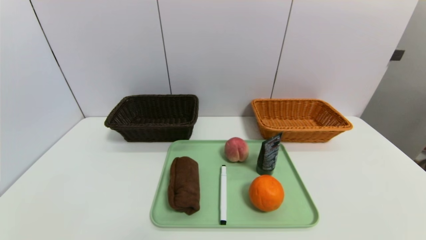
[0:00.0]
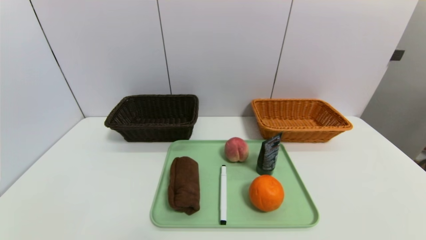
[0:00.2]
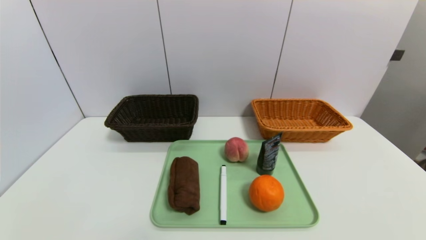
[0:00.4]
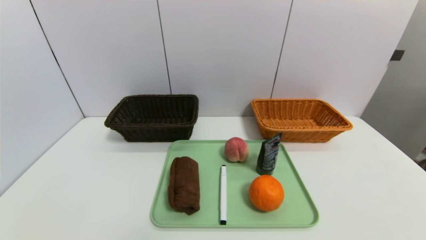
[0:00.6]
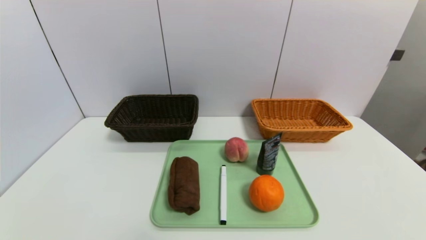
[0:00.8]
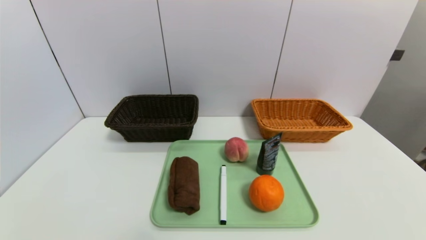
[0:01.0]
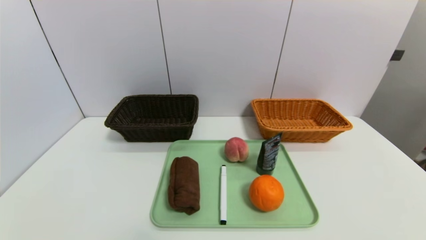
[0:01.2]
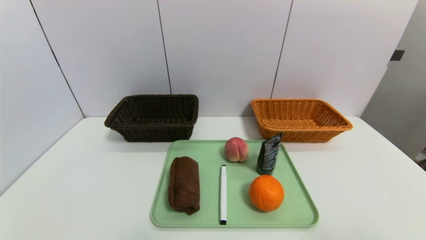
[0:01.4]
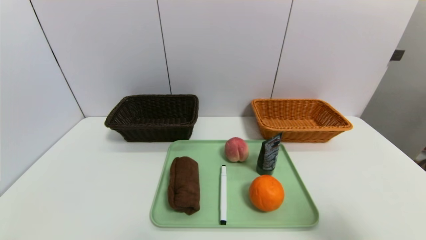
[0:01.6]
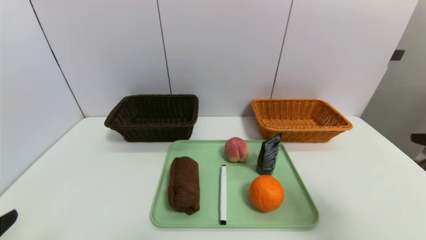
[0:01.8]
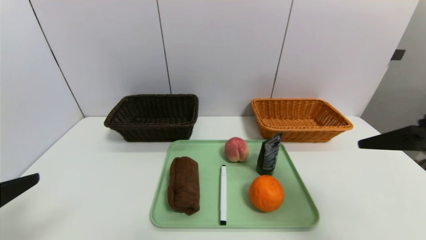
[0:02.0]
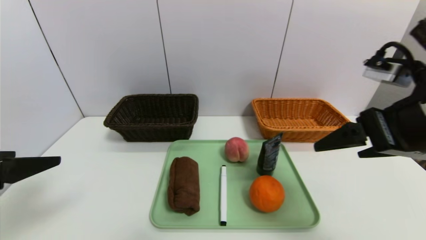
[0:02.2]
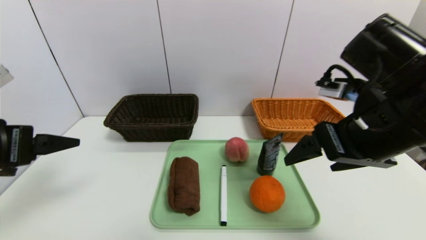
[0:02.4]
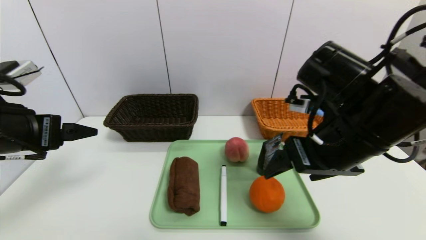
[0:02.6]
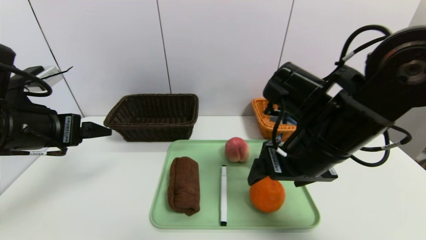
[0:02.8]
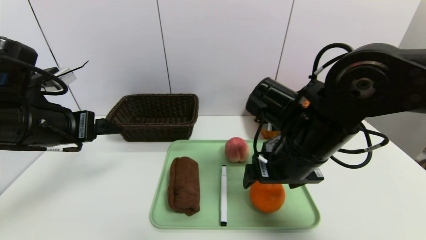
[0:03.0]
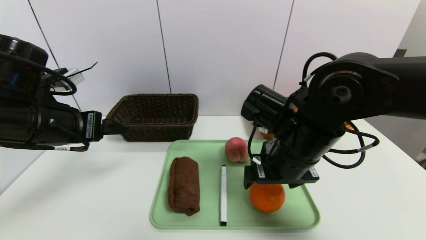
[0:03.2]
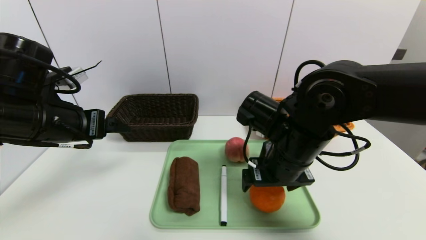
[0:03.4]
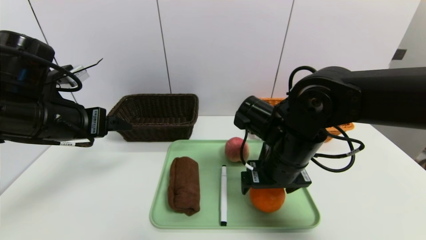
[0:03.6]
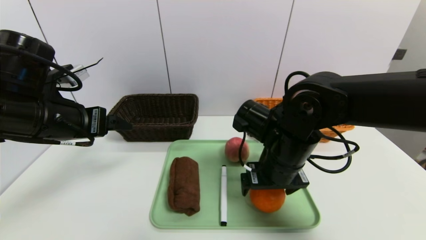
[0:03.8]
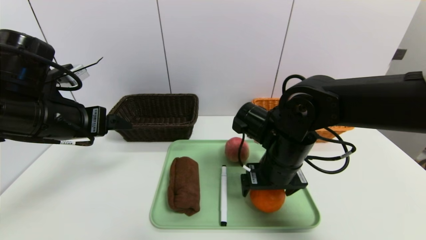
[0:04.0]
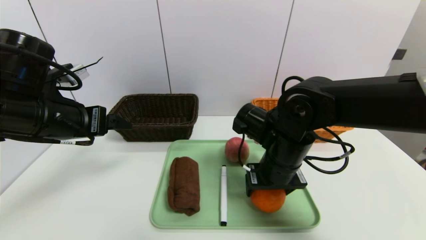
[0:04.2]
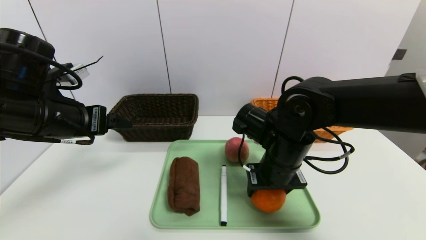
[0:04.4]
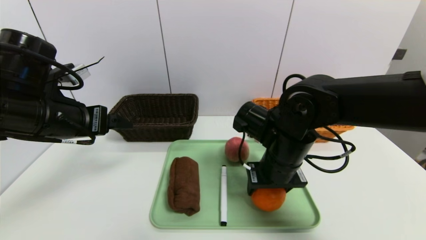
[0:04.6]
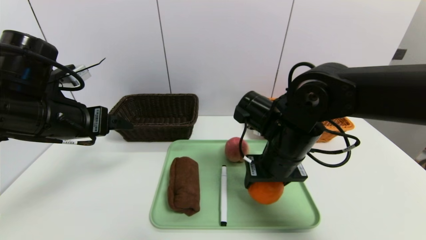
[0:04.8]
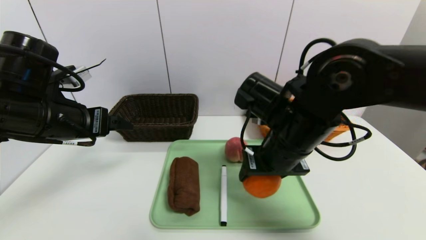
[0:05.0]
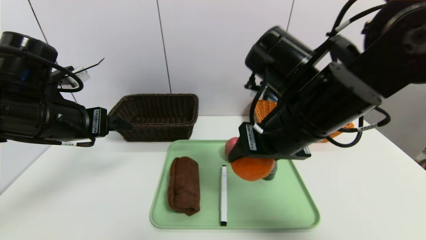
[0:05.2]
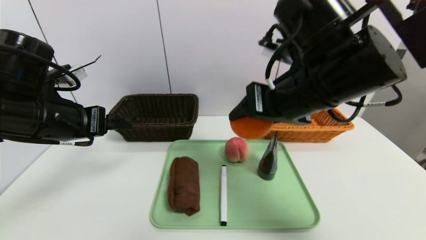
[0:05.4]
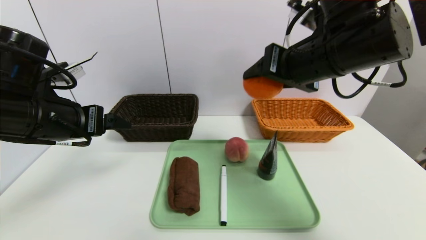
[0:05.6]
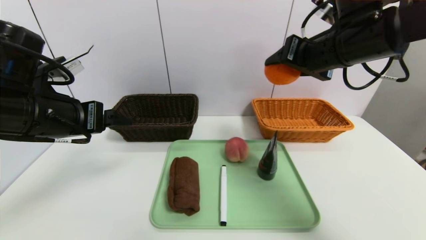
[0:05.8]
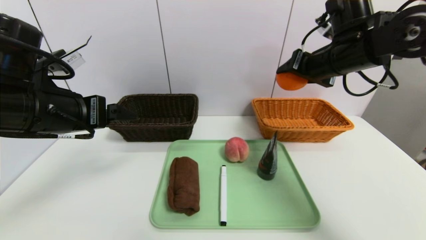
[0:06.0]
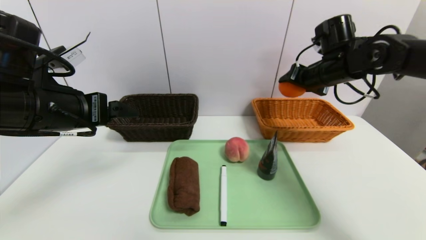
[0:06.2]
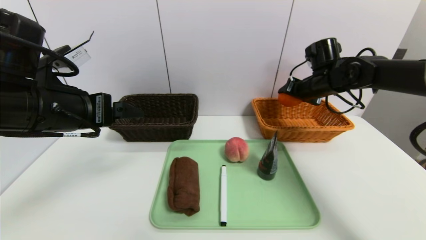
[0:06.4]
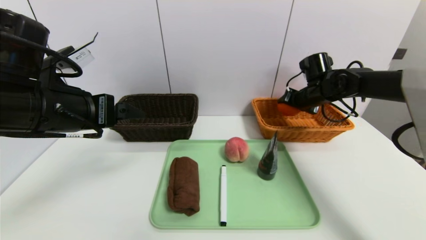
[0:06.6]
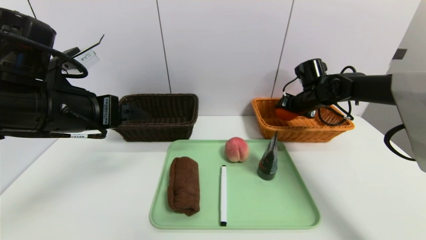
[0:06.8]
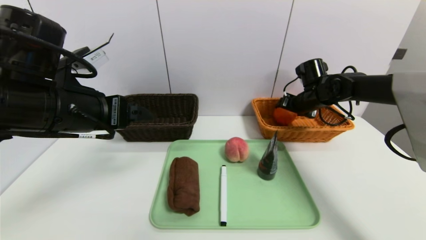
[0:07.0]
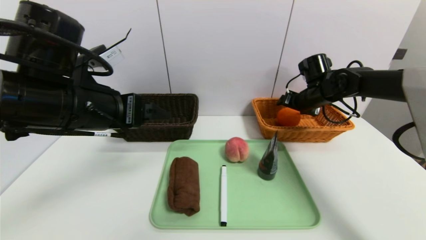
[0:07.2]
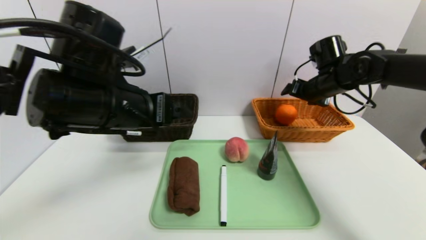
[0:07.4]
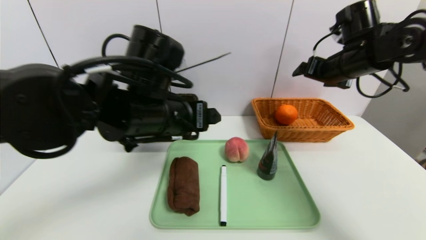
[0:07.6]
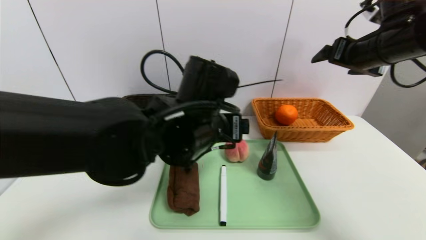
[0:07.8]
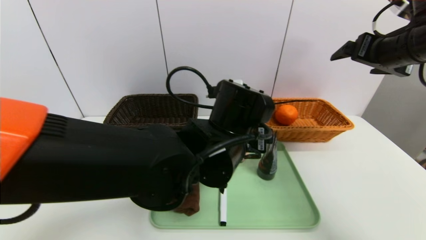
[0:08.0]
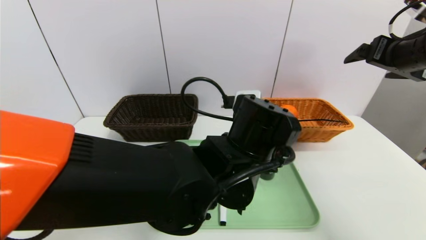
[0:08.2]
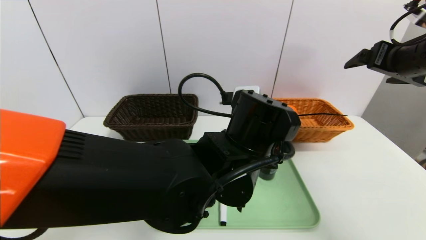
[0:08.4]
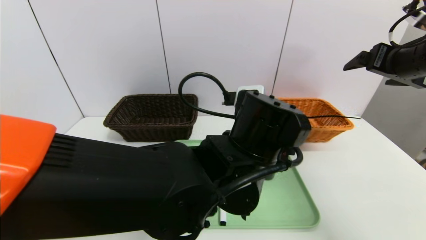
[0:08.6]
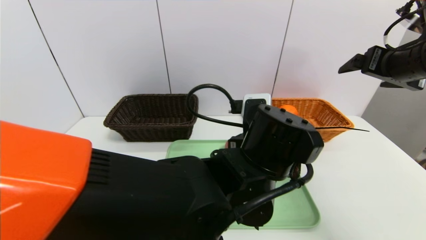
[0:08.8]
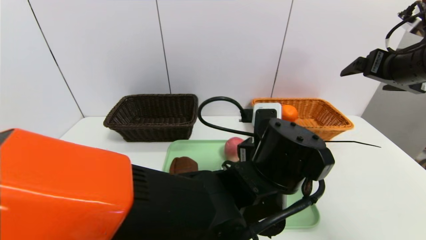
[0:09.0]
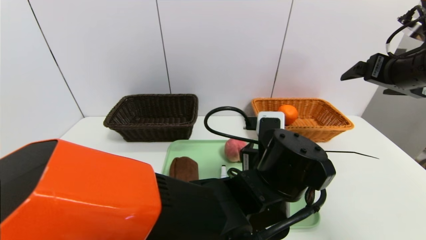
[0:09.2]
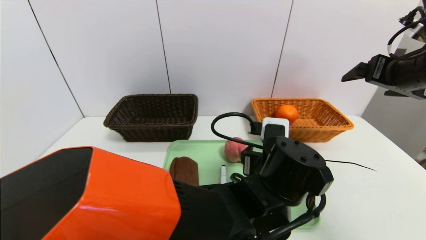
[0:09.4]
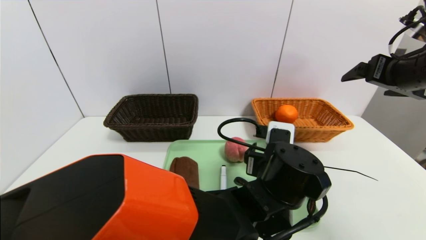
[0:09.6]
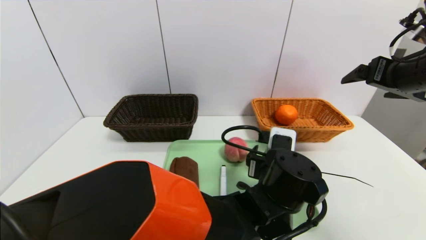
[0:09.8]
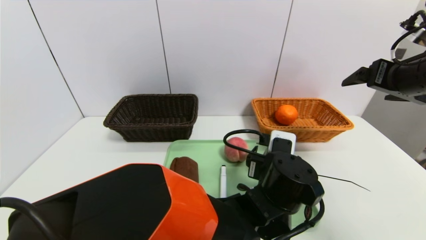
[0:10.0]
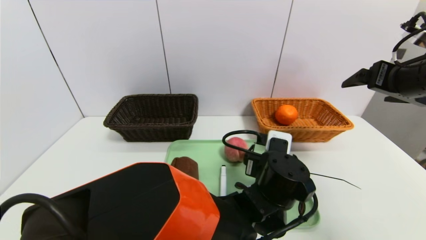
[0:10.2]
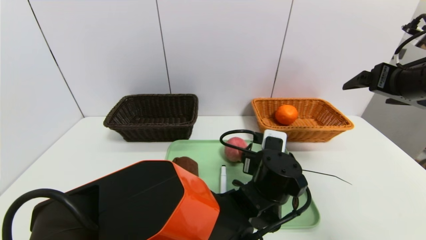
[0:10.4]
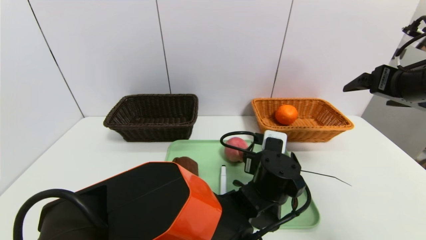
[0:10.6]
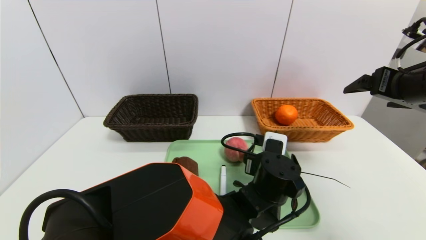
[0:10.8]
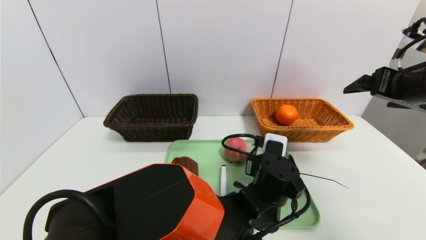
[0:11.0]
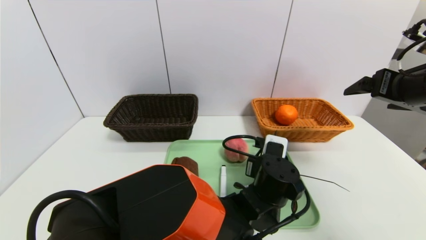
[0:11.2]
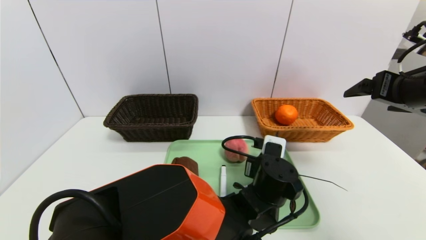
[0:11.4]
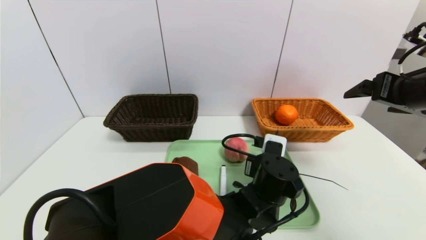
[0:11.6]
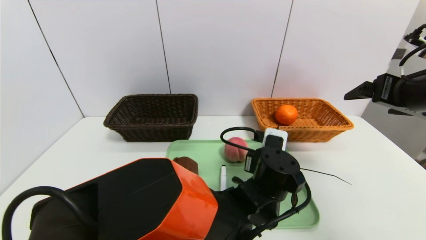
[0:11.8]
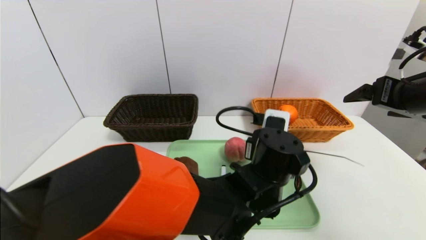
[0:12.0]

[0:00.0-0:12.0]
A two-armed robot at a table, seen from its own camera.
Task of the whole recording: place the food in the right basket with the right gripper, and place the non food items in the left basket with the left gripper.
Step, 0:00.0 to 0:07.2: Grasp the orange and put it in the right basket.
0:00.0 to 0:01.6: The right gripper travels upward by about 20 cm.
0:01.6 to 0:03.0: The right gripper heads to the left and forward, covering approximately 25 cm. The left gripper is displaced forward by about 25 cm.
0:03.0 to 0:04.4: The right gripper moves approximately 5 cm.
0:04.4 to 0:06.0: The right gripper shifts about 20 cm upward, to the right and forward.
0:06.0 to 0:07.6: The left gripper shifts approximately 15 cm to the right; the right gripper goes downward and returns, roughly 15 cm each way.
0:07.6 to 0:09.0: The left gripper travels to the right and downward by about 15 cm, while the right gripper is displaced backward by some 10 cm.
0:09.0 to 0:10.4: The left gripper goes some 10 cm downward.
0:10.4 to 0:12.0: The left gripper travels upward by approximately 5 cm, and closes.

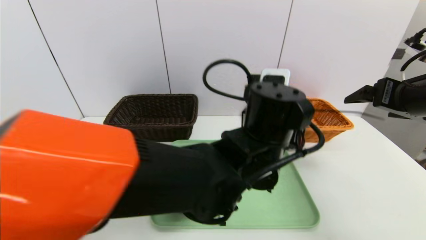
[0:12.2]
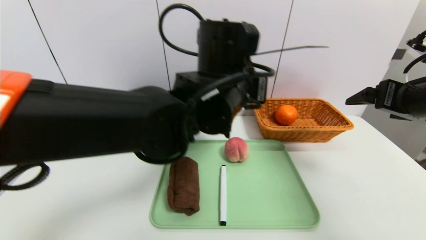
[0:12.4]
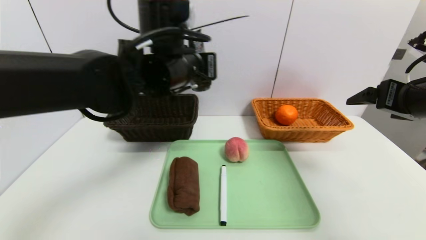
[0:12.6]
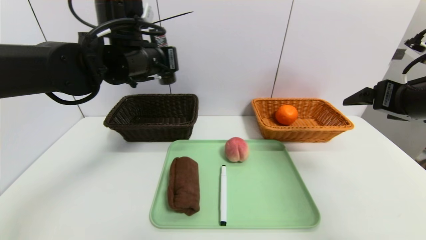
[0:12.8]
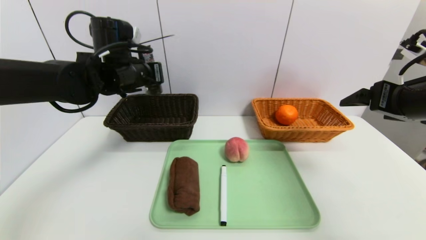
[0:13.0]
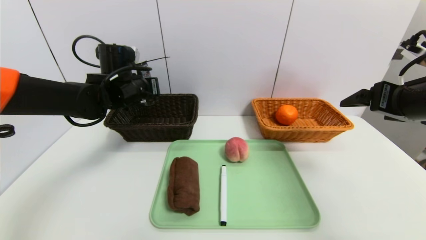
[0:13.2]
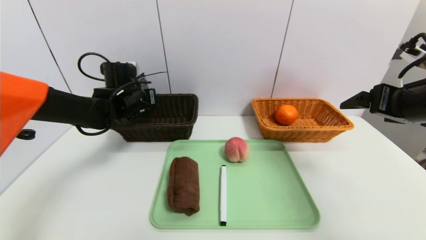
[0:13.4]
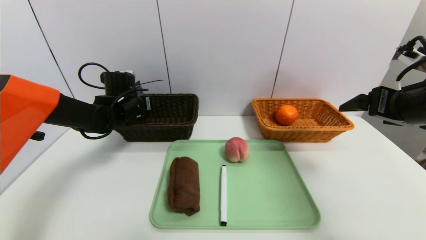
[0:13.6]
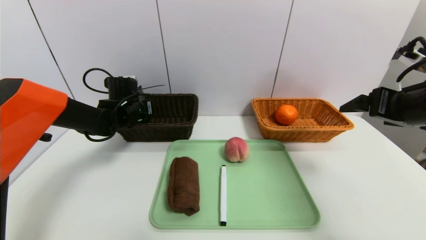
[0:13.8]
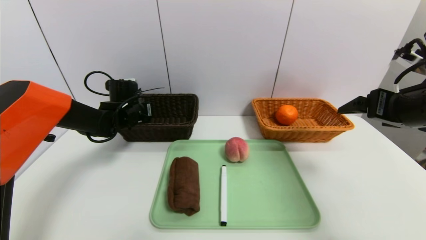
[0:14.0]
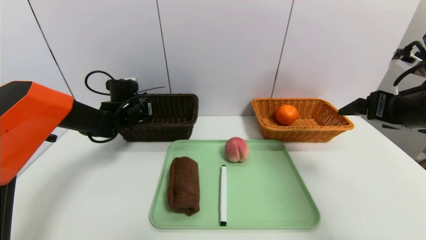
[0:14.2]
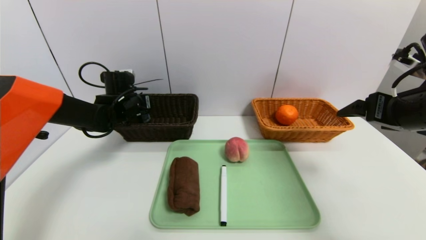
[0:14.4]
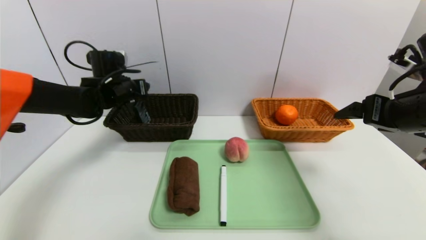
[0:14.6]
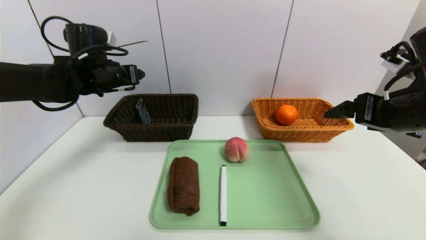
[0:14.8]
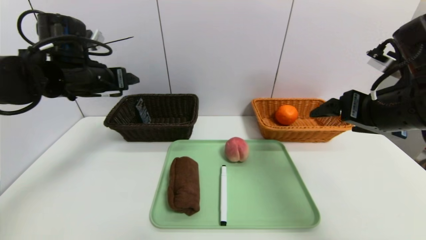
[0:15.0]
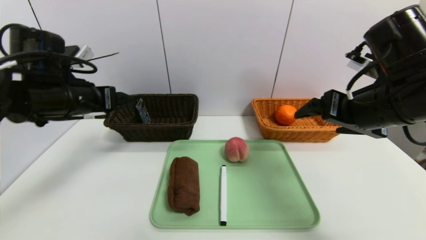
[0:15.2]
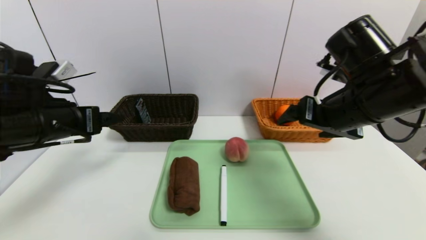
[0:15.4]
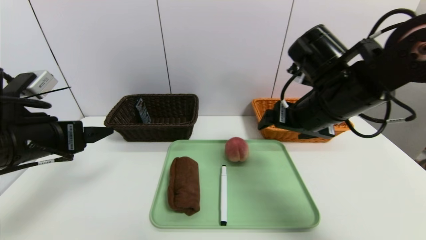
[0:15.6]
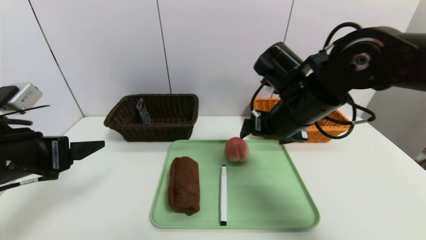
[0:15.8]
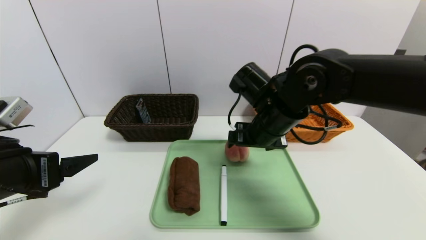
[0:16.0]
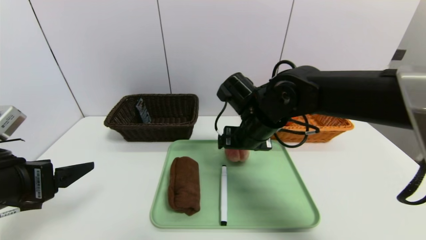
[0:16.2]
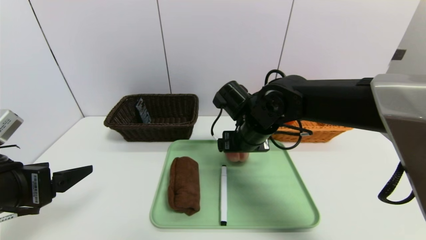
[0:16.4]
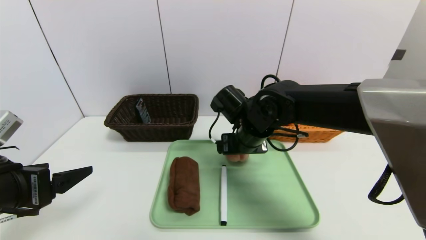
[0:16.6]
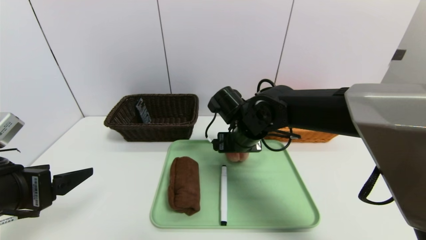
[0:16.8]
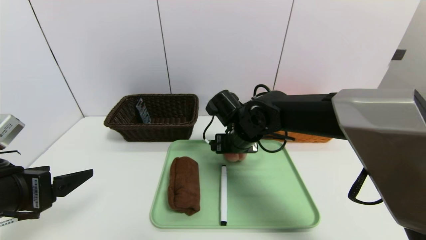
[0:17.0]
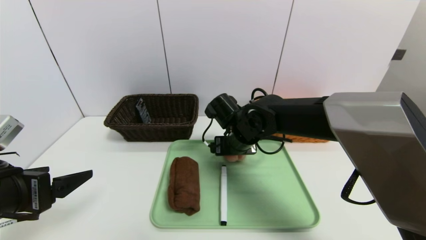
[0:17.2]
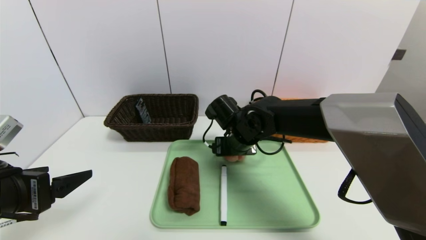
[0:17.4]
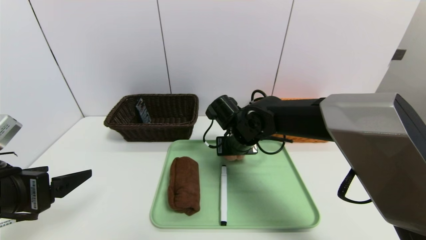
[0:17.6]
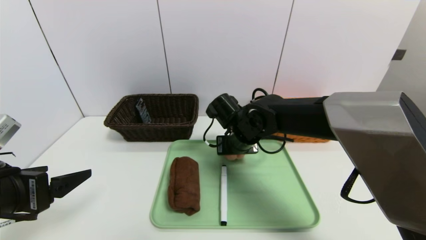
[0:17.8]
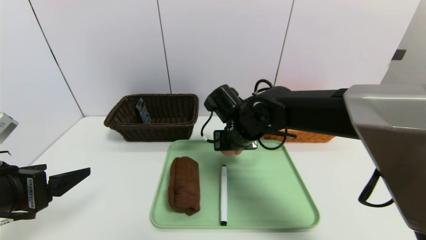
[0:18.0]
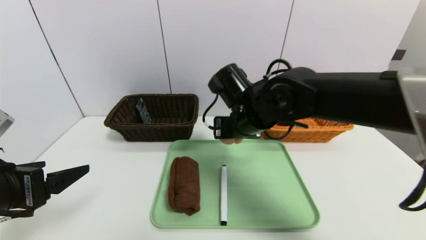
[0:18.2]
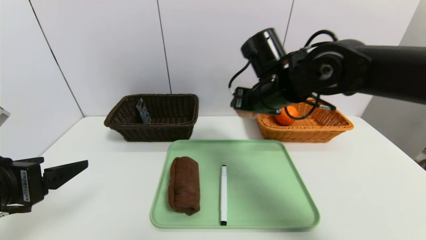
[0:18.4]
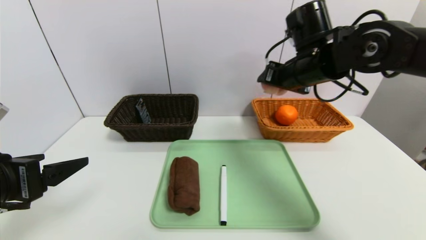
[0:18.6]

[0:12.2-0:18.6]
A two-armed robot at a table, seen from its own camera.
Task of the whole recording: place the food in the right basket with the right gripper, and place the non food items in the left basket with the left gripper.
Step, 0:12.2 to 0:15.0: Grasp the soft cleanser and put it in the left basket.
0:12.2 to 0:13.8: The left gripper heads to the left and forward, covering approximately 35 cm.
0:13.8 to 0:15.4: The right gripper moves to the left, approximately 10 cm. Meanwhile the left gripper goes about 25 cm backward and upward, and opens.
0:15.4 to 0:17.0: The right gripper shifts roughly 20 cm to the left, downward and forward; the left gripper goes approximately 10 cm backward.
0:17.0 to 0:18.6: The right gripper goes roughly 20 cm upward and to the right.
